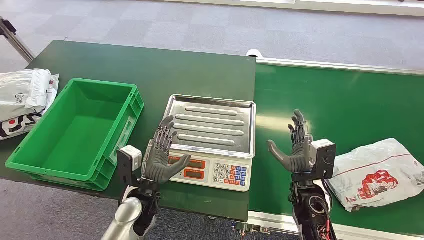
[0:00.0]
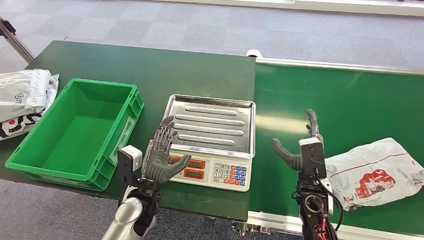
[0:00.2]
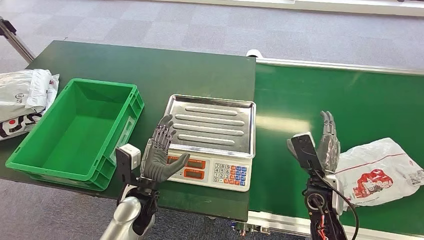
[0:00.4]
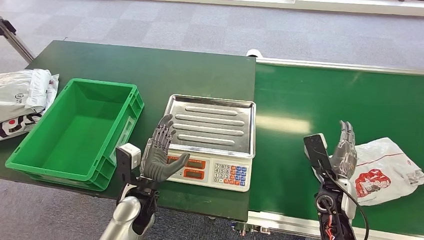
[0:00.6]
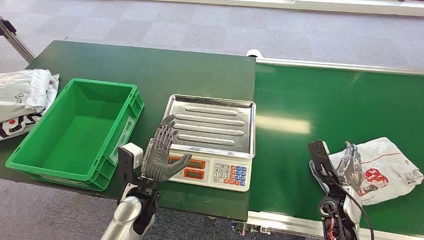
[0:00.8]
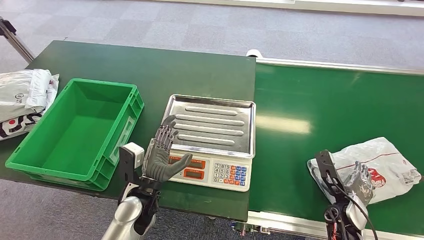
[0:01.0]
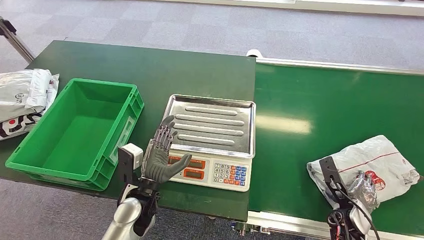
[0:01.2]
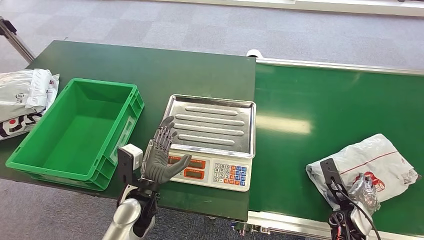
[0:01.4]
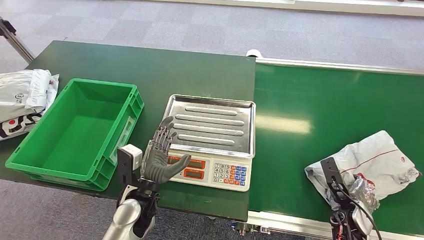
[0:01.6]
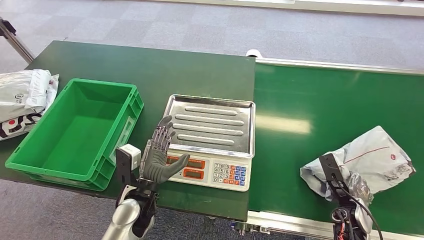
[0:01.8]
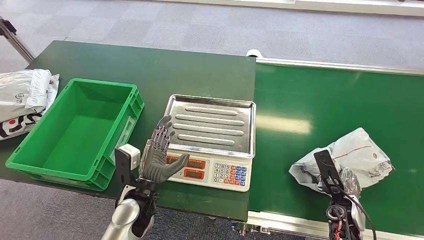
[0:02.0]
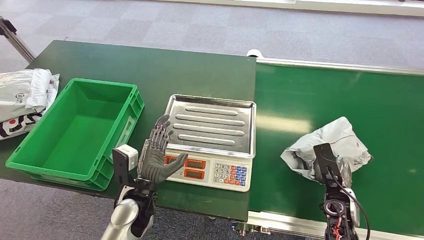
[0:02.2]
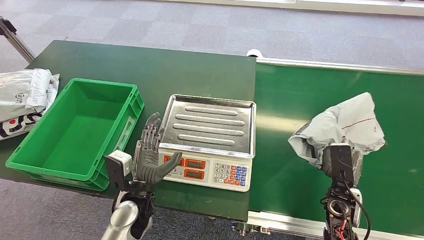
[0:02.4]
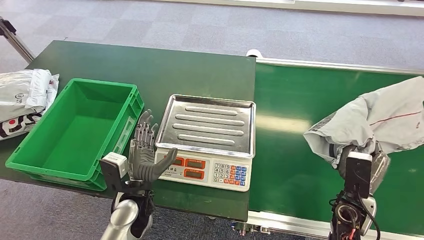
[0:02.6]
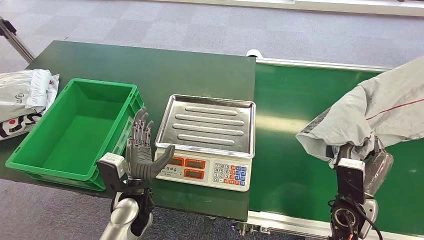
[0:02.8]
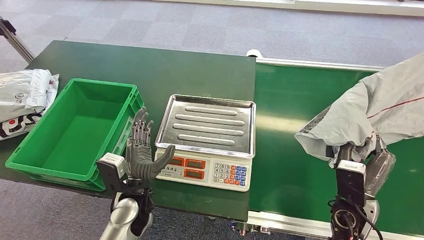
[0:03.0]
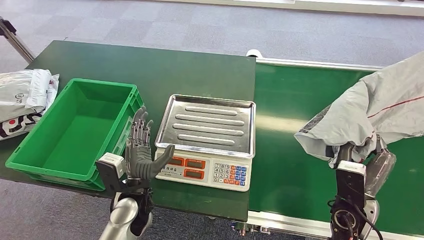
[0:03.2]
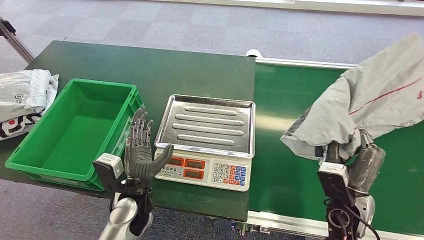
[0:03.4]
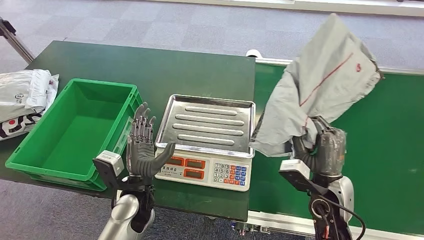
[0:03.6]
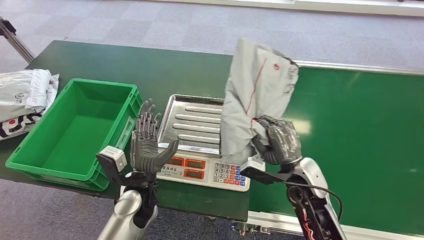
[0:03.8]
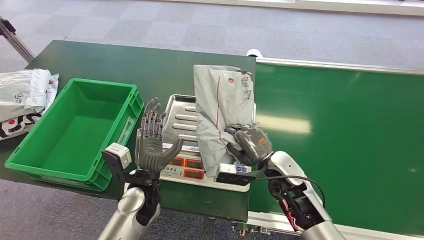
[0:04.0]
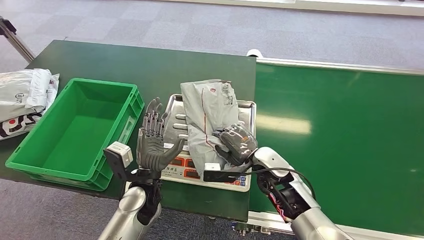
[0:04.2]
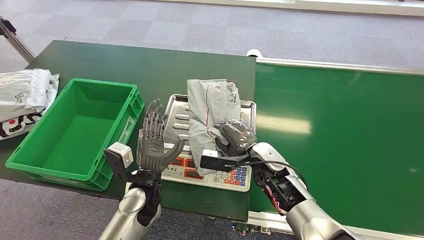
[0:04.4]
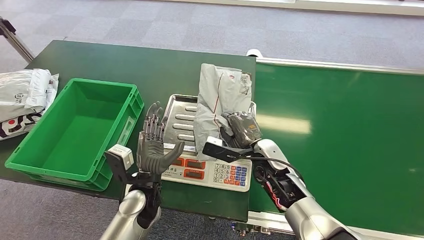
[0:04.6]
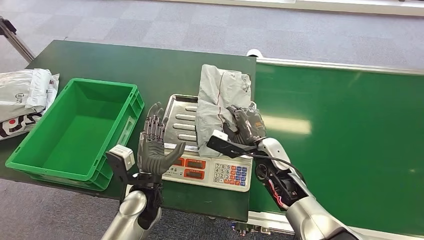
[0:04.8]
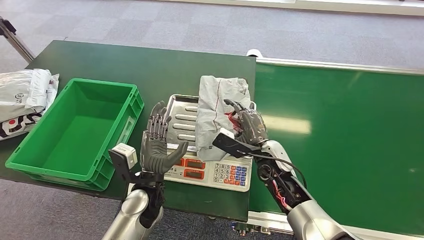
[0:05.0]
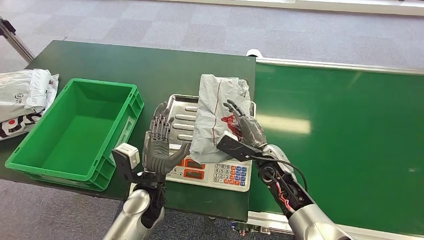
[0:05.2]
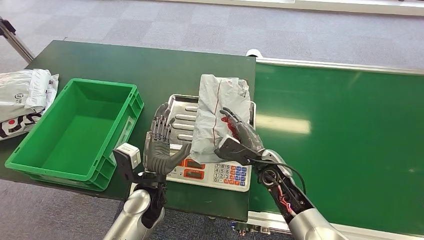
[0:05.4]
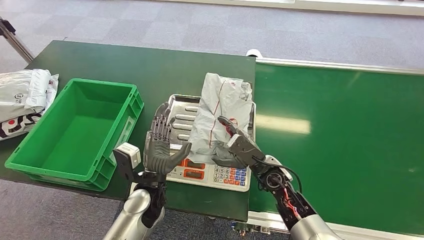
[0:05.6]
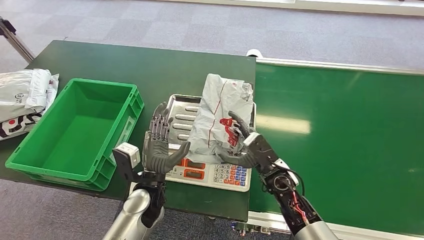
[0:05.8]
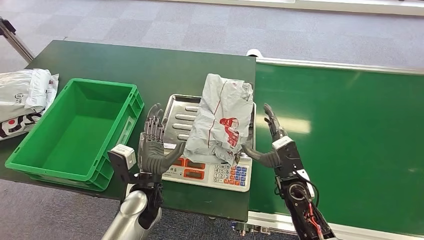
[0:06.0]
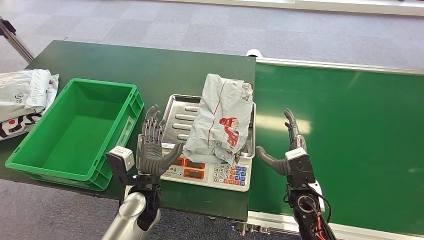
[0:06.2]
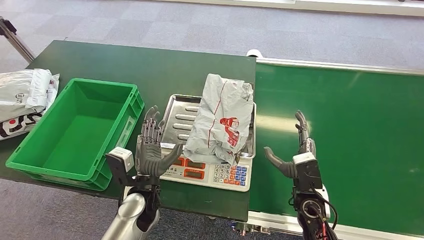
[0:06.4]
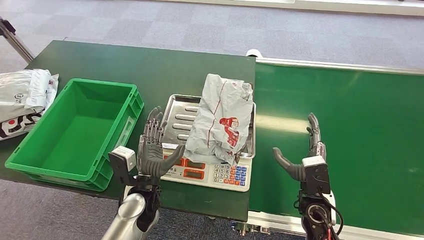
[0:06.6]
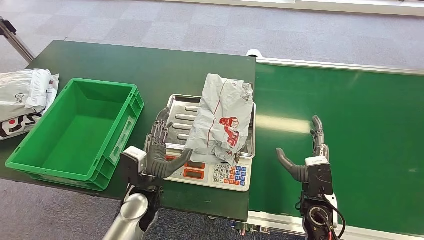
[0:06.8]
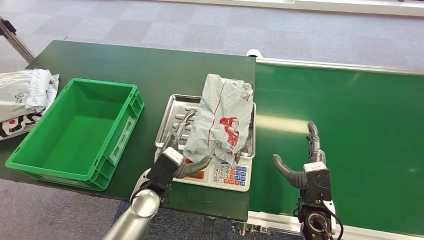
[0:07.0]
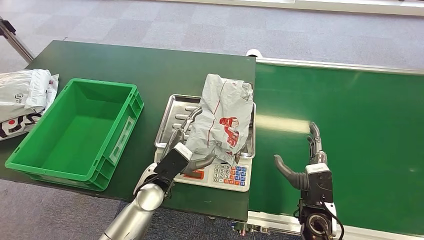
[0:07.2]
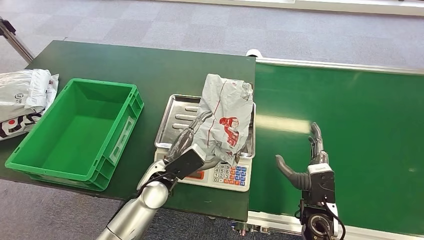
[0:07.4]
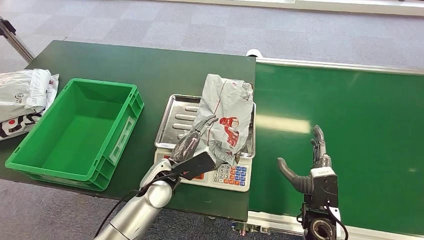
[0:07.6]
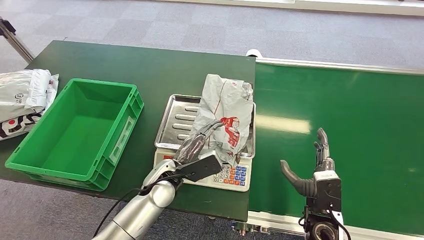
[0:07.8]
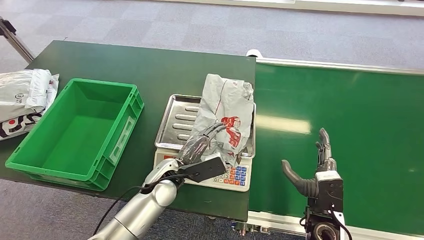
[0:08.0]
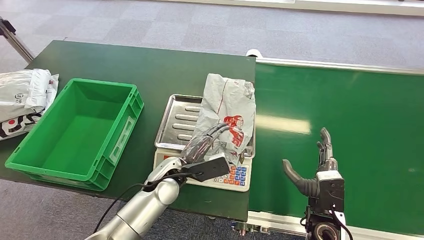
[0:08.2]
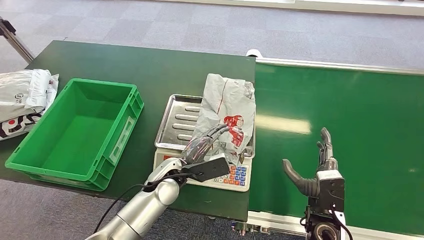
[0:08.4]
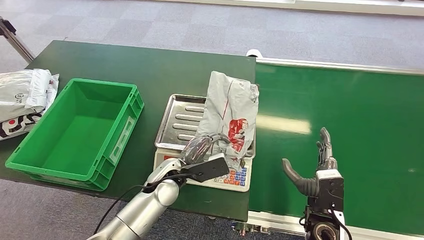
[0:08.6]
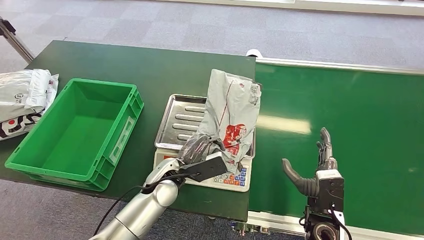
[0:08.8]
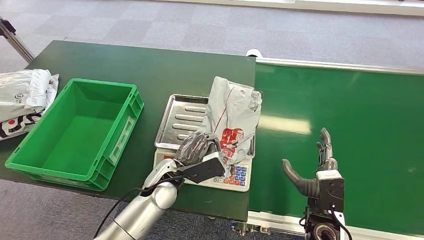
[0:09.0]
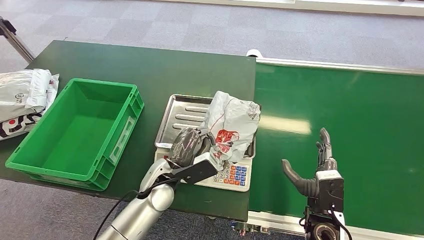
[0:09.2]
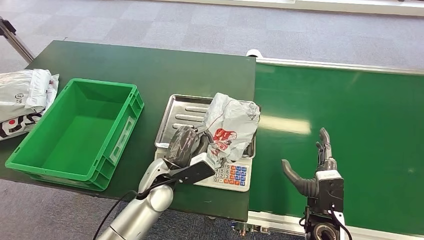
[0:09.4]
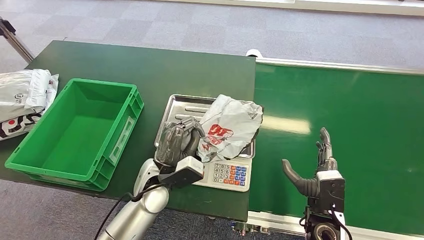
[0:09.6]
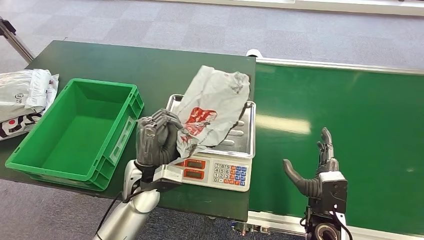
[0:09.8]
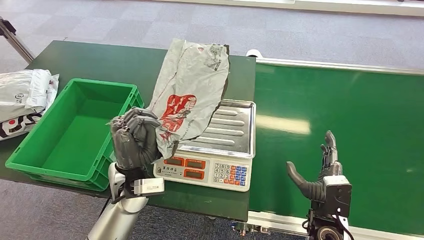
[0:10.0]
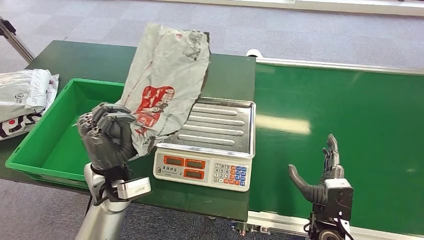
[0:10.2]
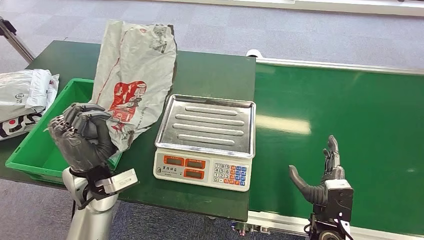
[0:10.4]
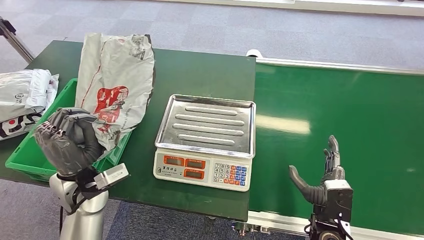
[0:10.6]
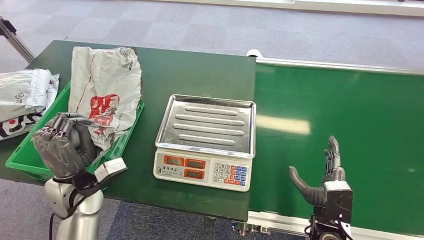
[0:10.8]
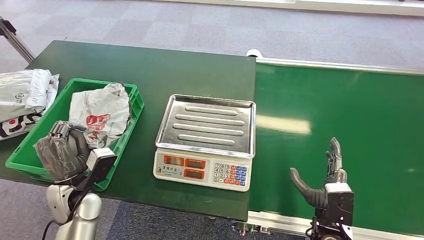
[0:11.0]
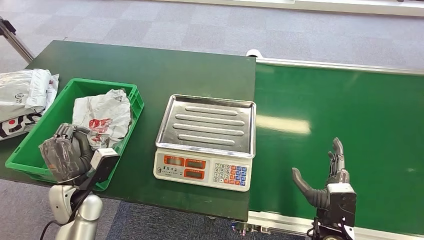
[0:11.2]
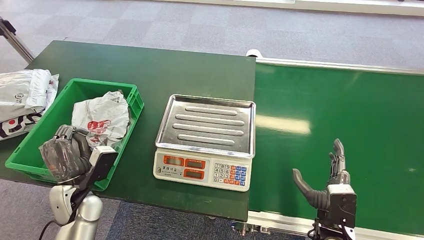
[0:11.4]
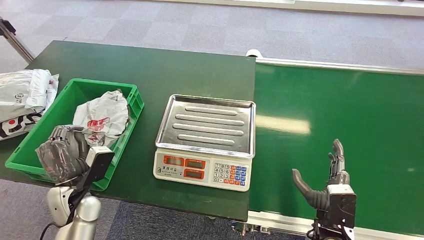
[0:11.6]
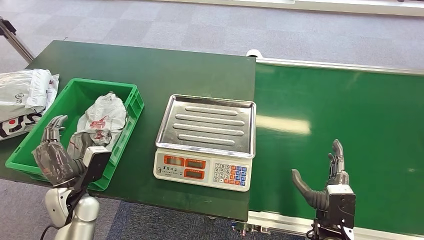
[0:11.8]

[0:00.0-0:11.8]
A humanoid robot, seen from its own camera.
Step, 0:00.0 to 0:02.4: Pick up the package from the conveyor belt.
Step, 0:02.6 to 0:05.6: Place the package onto the inbound machine.
Step, 0:05.8 to 0:09.6: Pick up the package from the inbound machine.
Step, 0:09.8 to 0:11.8: Place the package into the parcel locker.
0:01.4 to 0:03.0: The right hand travels upward and to the left by roughly 10 cm.
0:04.4 to 0:06.0: The right hand goes approximately 5 cm to the right.
0:06.0 to 0:07.4: The right hand moves backward, some 5 cm.
0:10.4 to 0:11.8: The left hand heads downward and to the left, covering approximately 10 cm.
